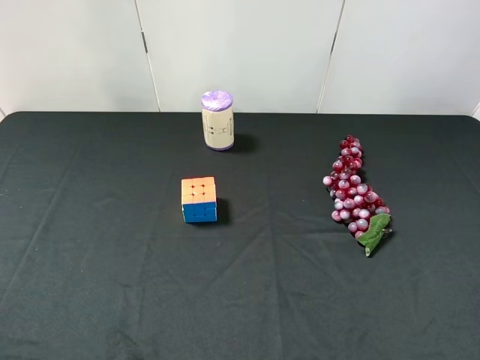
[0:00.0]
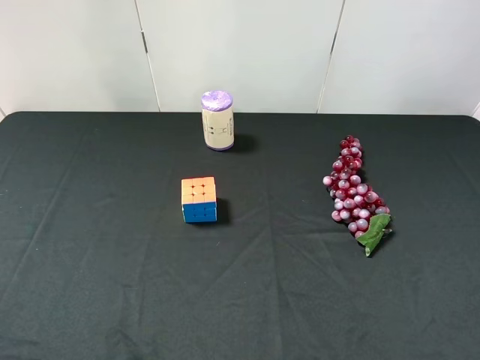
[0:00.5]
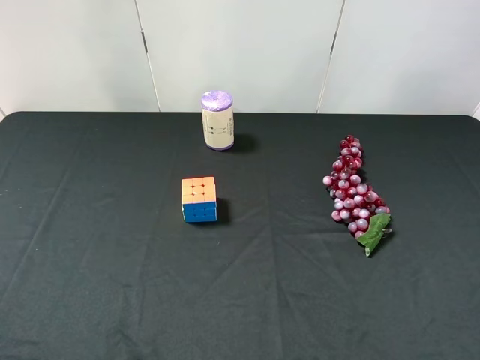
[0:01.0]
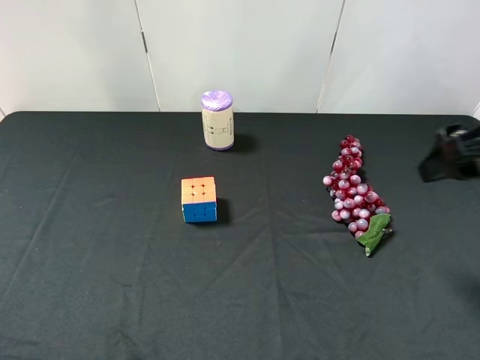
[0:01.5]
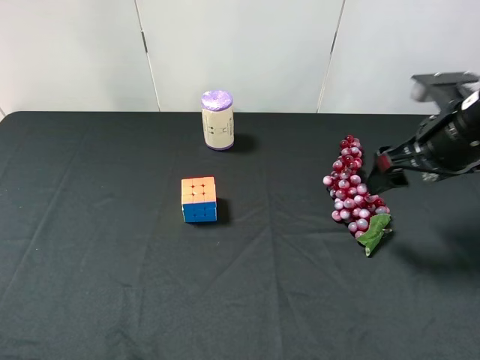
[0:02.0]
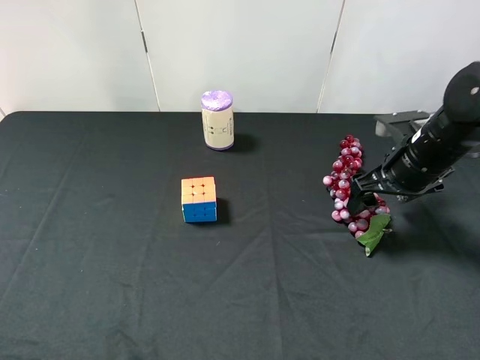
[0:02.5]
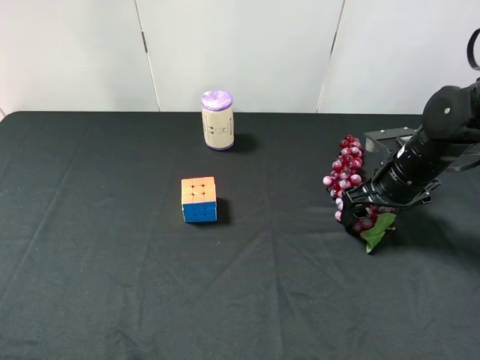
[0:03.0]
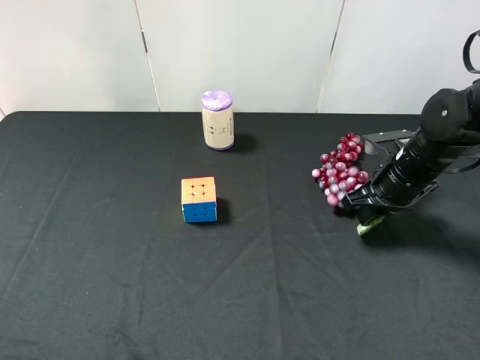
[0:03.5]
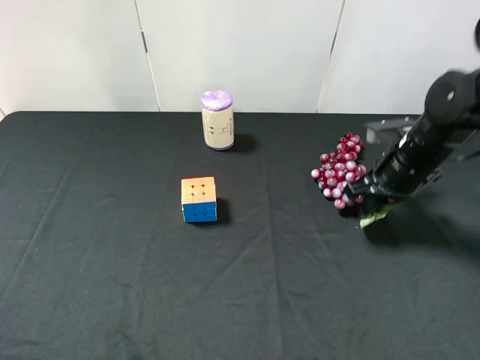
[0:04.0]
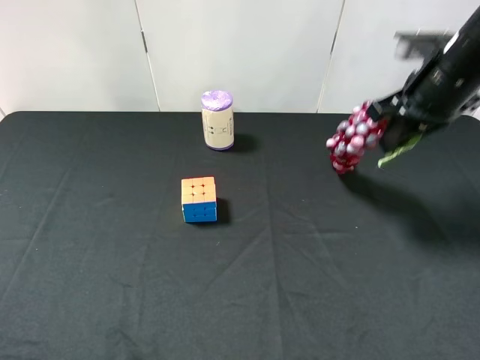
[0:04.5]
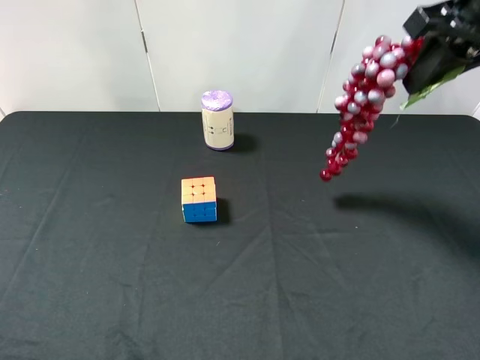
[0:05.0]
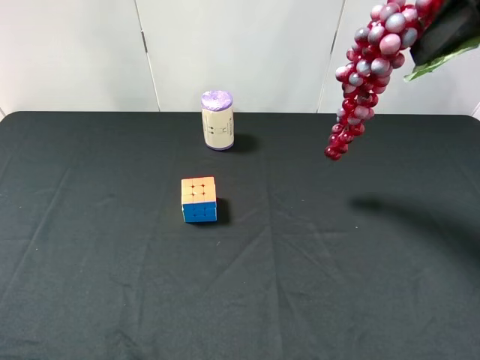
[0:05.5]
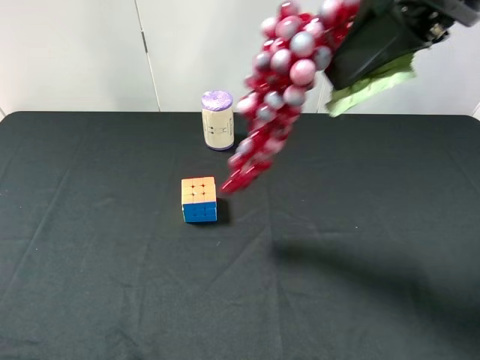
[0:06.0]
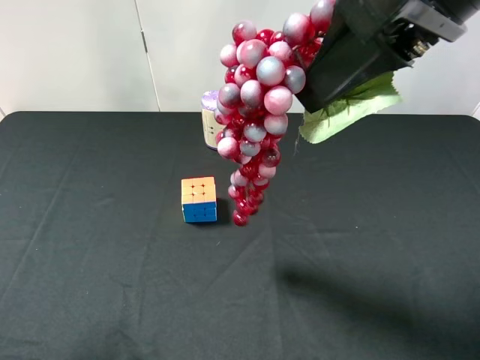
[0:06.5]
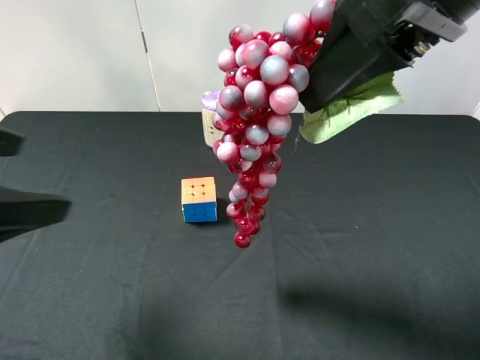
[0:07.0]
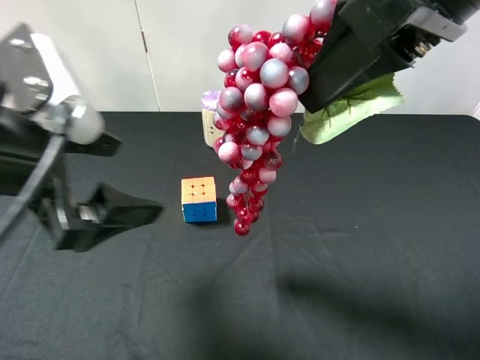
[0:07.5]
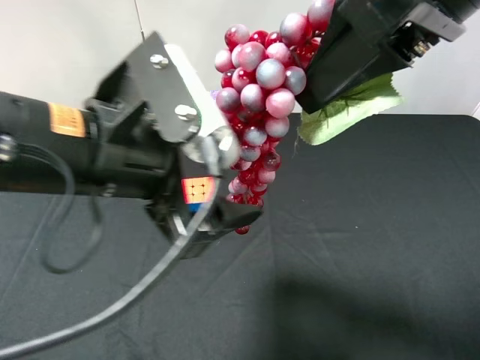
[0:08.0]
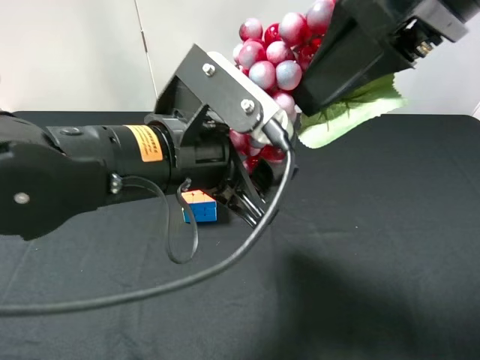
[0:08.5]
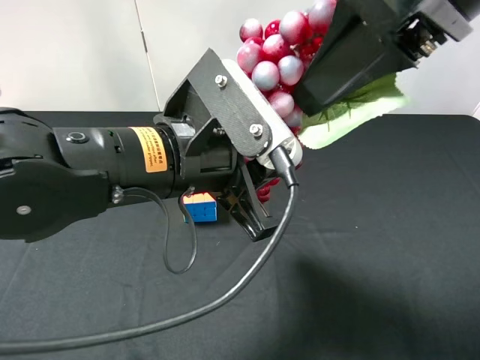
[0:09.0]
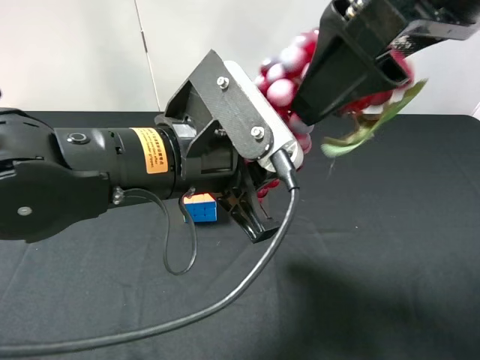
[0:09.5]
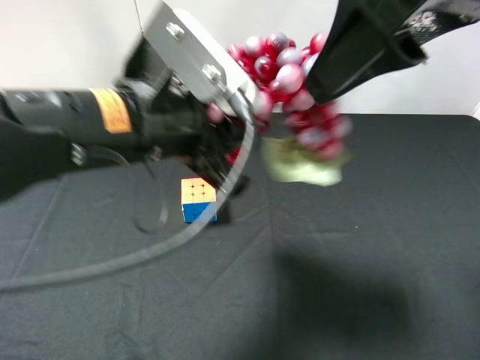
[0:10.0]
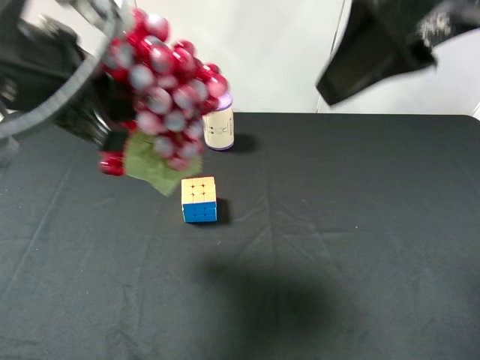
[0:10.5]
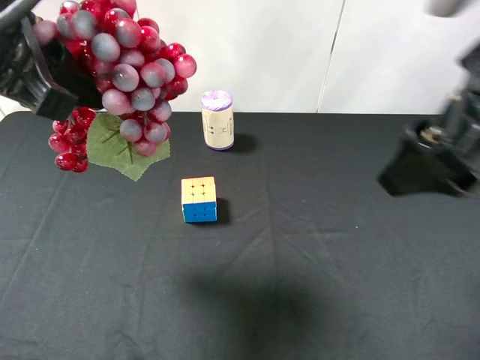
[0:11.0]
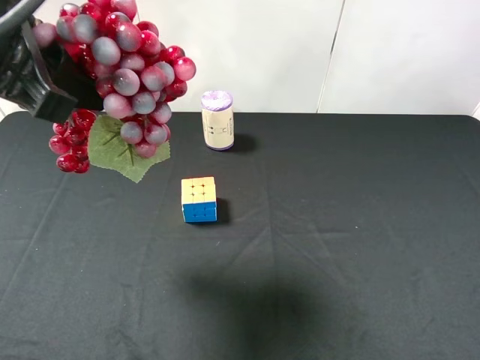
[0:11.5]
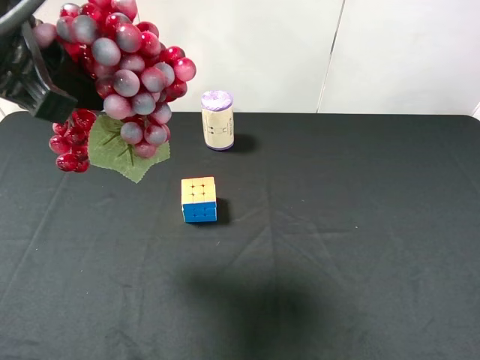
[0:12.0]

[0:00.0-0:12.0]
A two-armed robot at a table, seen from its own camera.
Task of the whole recording: use the right gripper to pick up the item and transfer it from the right gripper to the left gripper.
Step, 0:00.0 to 0:02.5: Use the right gripper to grab the grape on the right side of the table.
Step, 0:03.0 to 0:09.5: Pass the grape to the left gripper.
0:00.0 to 0:02.0: The right gripper travels forward by about 25 cm.
0:02.0 to 0:04.0: The right gripper is displaced downward by about 5 cm, and closes up.
0:04.0 to 0:06.0: The right gripper shifts some 30 cm upward, backward and to the left.
0:06.0 to 0:08.0: The left gripper is displaced to the right and forward by about 25 cm.
0:08.0 to 0:10.0: The left gripper closes, while the right gripper opens its fingers.
0:10.0 to 0:12.0: The left gripper travels to the left and upward by some 15 cm. The right gripper heads to the right, backward and downward, covering about 25 cm.

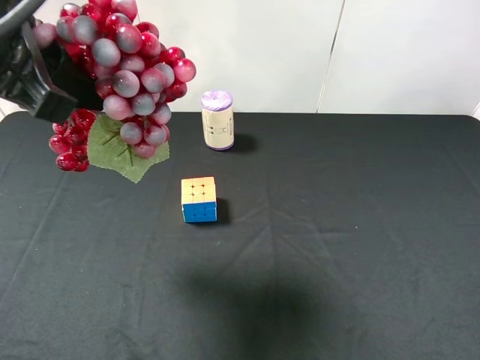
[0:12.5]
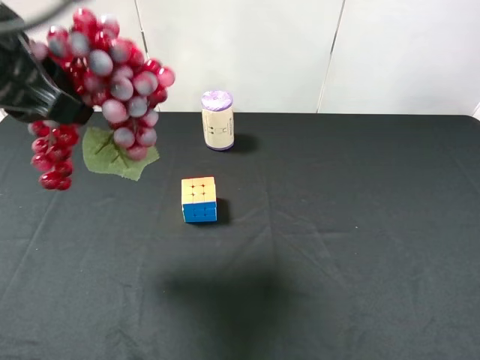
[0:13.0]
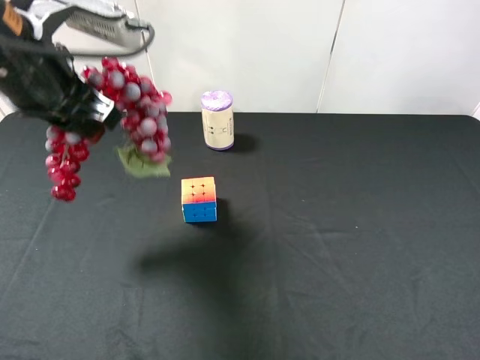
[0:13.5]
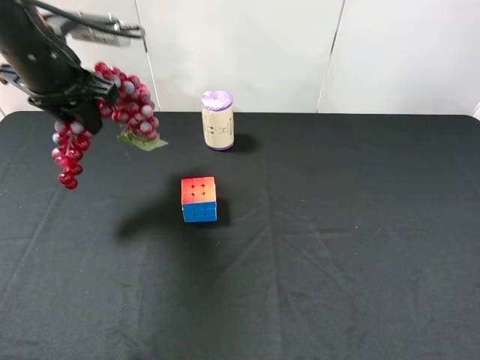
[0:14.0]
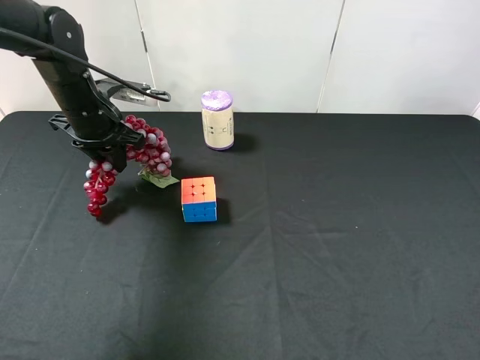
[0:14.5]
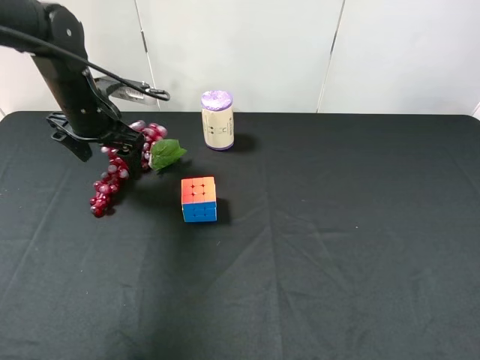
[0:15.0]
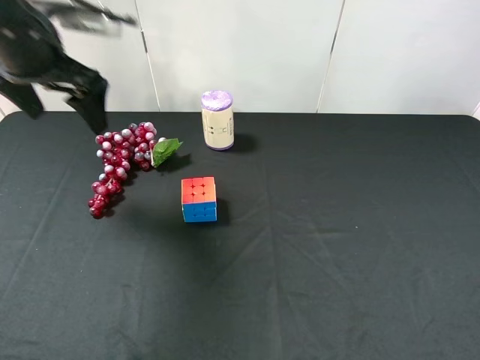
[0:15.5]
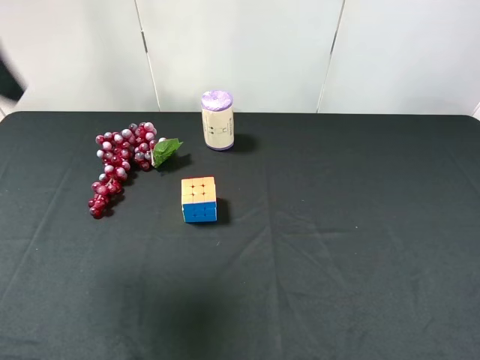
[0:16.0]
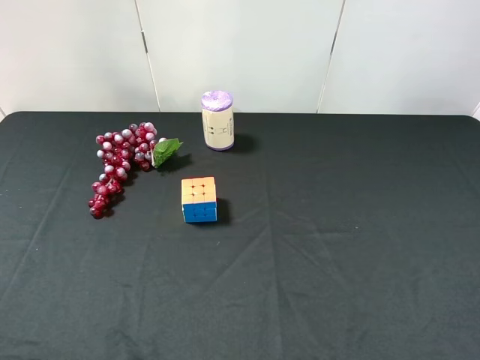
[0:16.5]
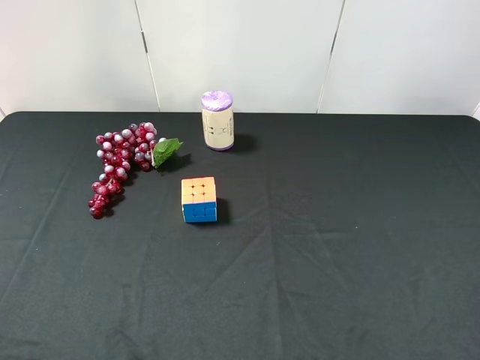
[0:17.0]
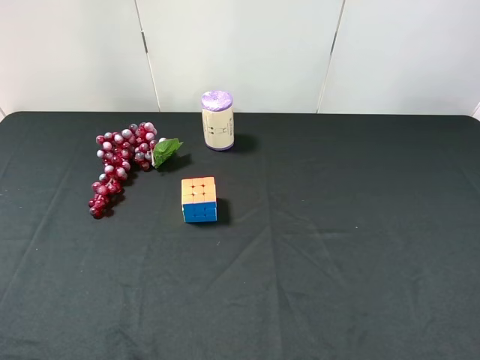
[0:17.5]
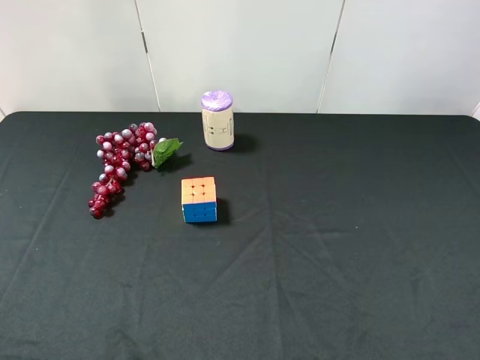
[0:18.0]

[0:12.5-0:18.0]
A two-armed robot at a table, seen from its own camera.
Task of the whole recording: use the right gripper to pick up the item and transfer it from the right gripper to the left gripper.
Step, 0:12.5 to 0:15.5: The left gripper places grape on the left side of the table.
0:12.5 to 0:14.5: The left gripper is displaced forward and downward by some 25 cm.
0:14.5 to 0:16.0: The left gripper goes approximately 30 cm upward and backward, and opens its fingers.
0:16.0 to 0:18.0: The left gripper shifts approximately 25 cm backward and downward.

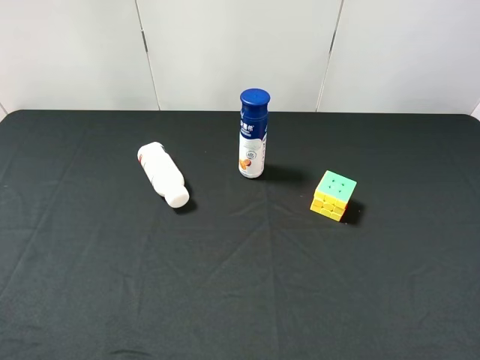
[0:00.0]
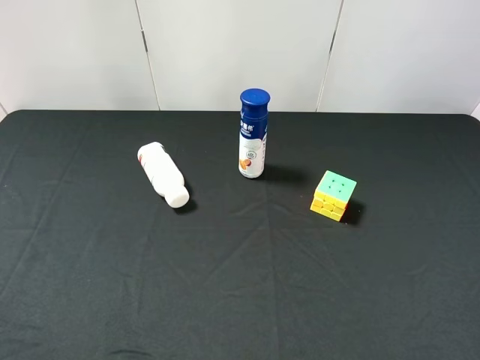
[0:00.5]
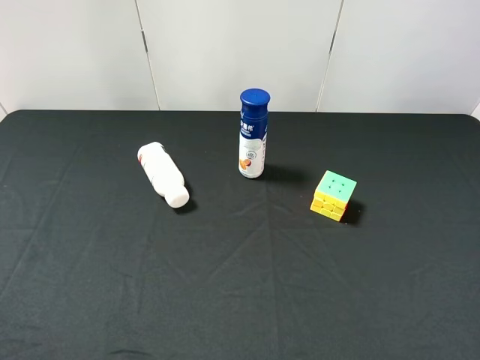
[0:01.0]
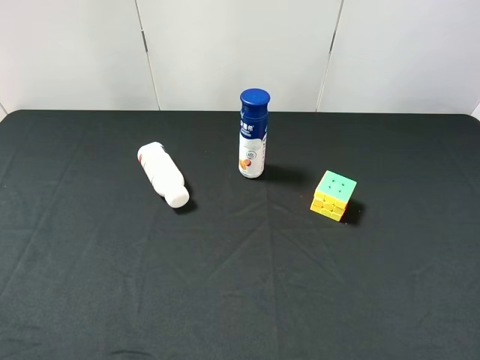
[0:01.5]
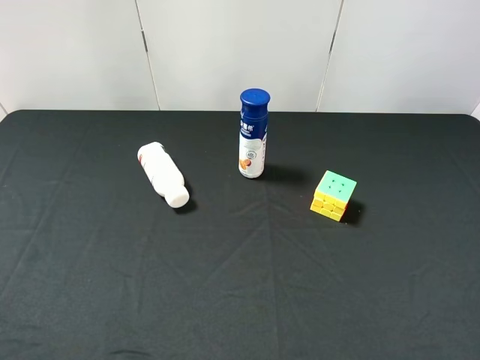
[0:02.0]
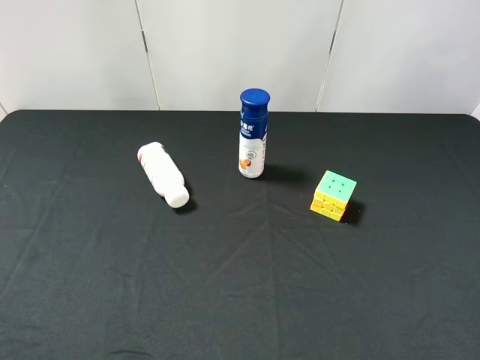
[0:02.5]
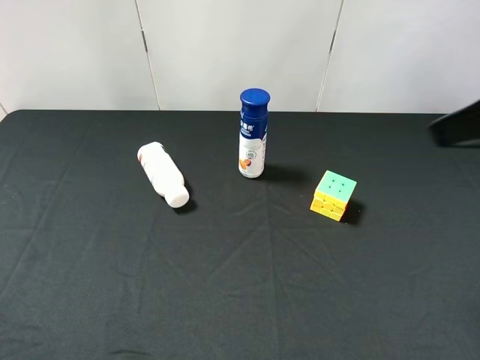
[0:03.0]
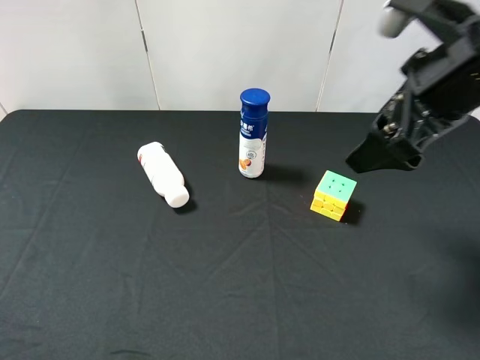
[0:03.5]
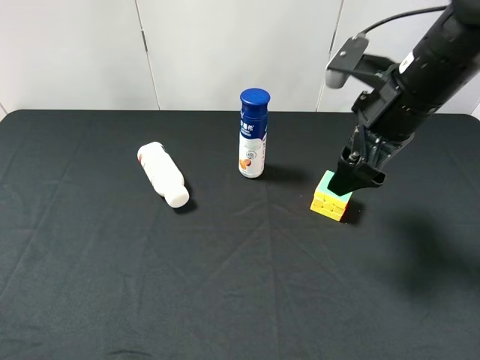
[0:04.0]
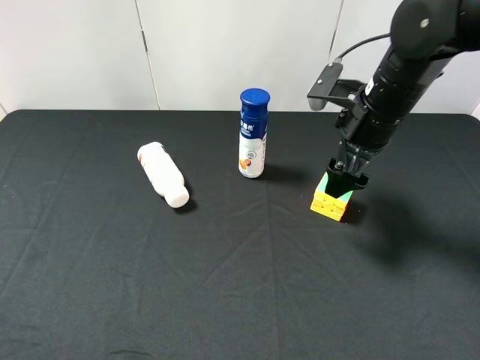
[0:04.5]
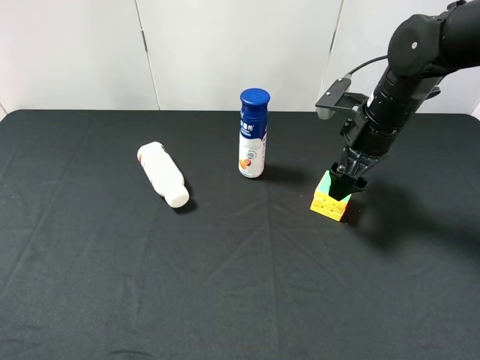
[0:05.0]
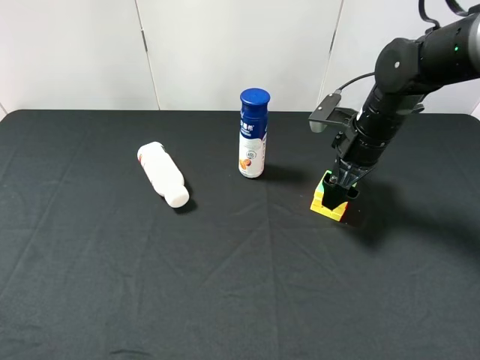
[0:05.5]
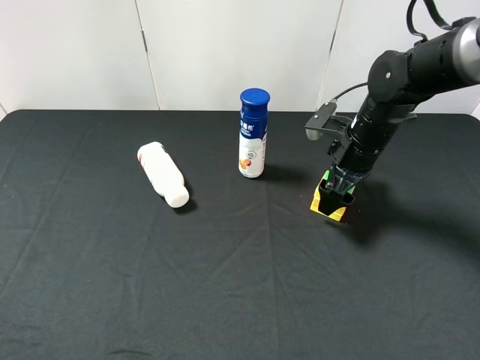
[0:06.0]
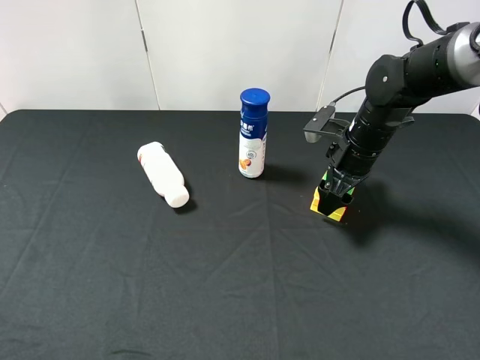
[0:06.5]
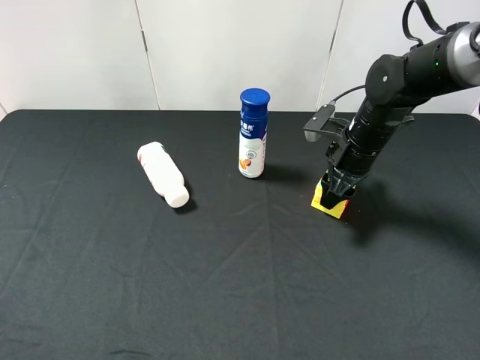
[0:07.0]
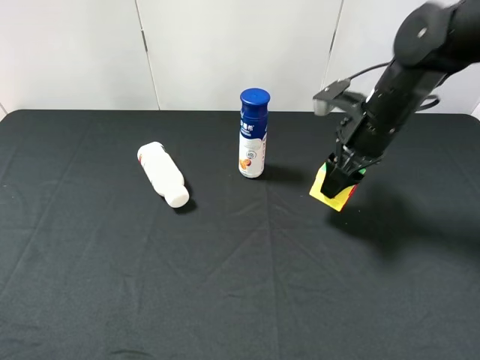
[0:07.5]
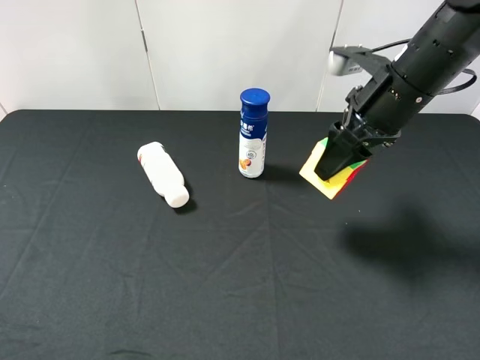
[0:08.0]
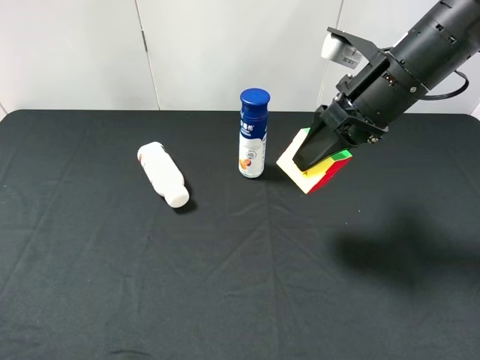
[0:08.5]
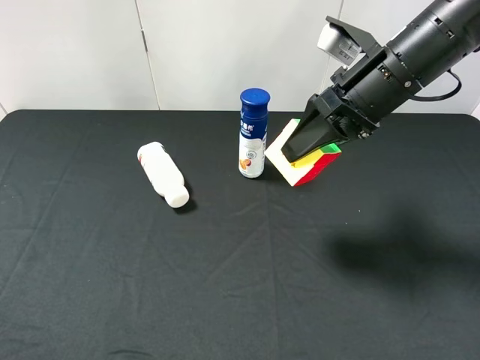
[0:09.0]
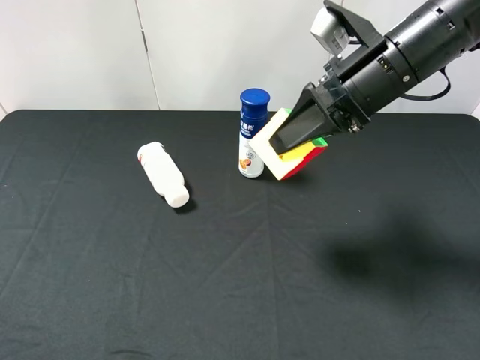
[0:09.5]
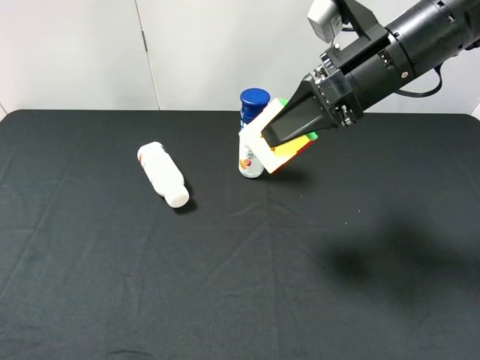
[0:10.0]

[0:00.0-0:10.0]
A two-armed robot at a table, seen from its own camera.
Task of the whole recording: use the right gripper to pick up the item and transfer it from the right gripper to the left gripper.
Step, 0:00.0 to 0:06.5: Use the right gripper to grab the Rubik's Cube on the right side of the table.
0:00.0 to 0:02.0: Both grippers stay about where they are.
0:02.0 to 0:04.0: The right gripper is displaced forward and to the left by some 30 cm.
0:04.0 to 0:06.0: The right gripper shifts approximately 15 cm downward and forward.
0:06.0 to 0:08.0: The right gripper heads upward and backward, covering roughly 15 cm, and closes.
